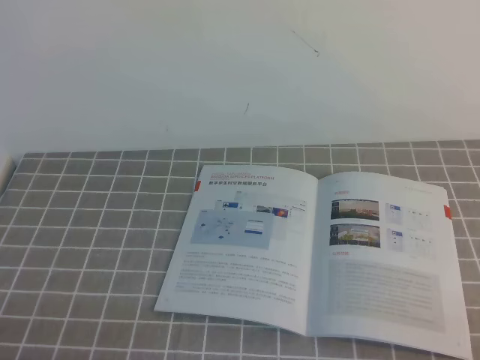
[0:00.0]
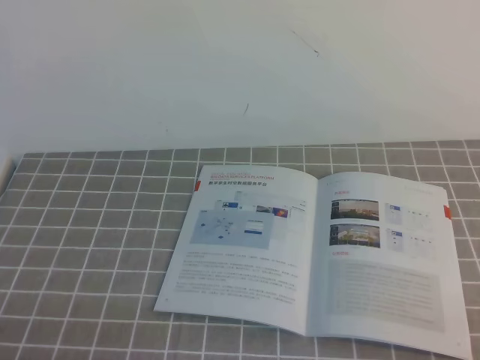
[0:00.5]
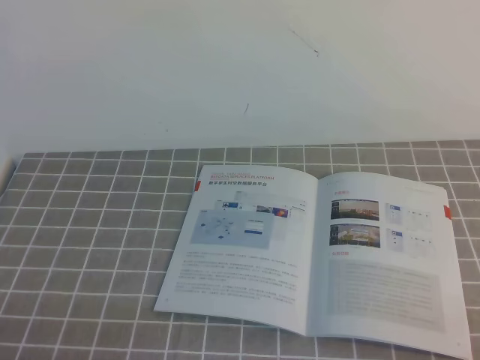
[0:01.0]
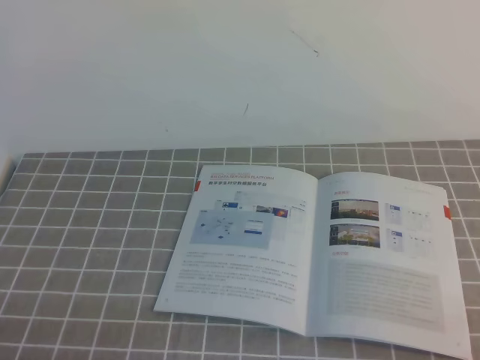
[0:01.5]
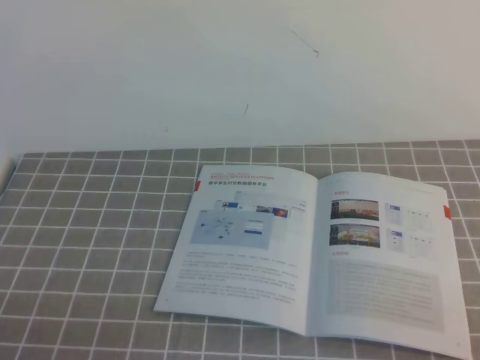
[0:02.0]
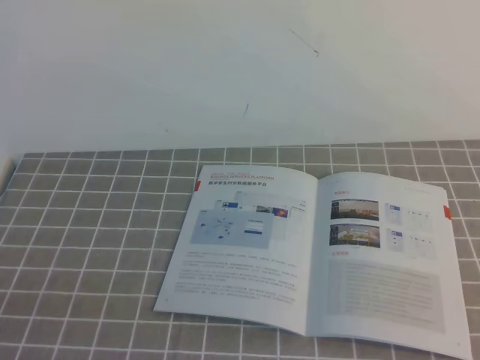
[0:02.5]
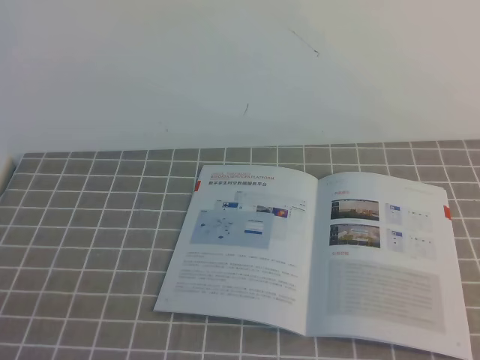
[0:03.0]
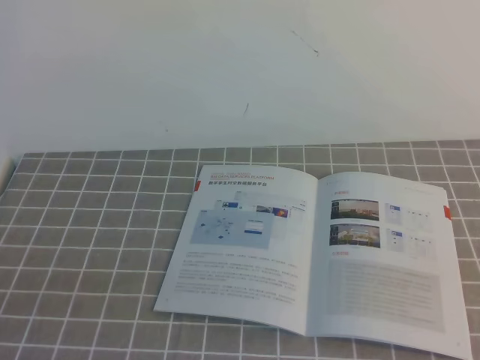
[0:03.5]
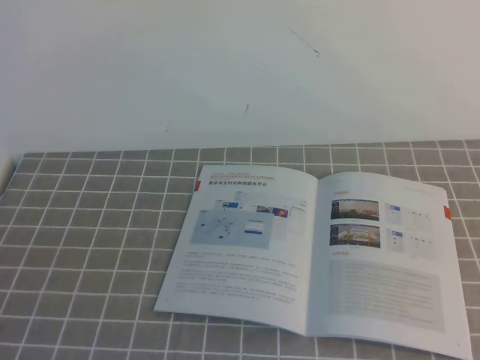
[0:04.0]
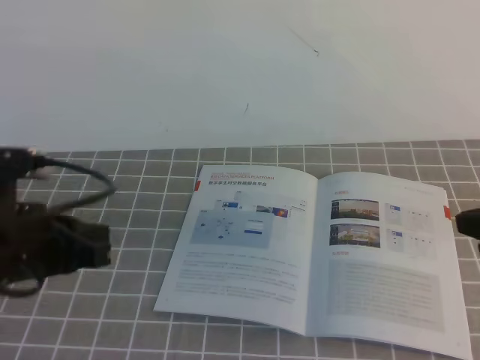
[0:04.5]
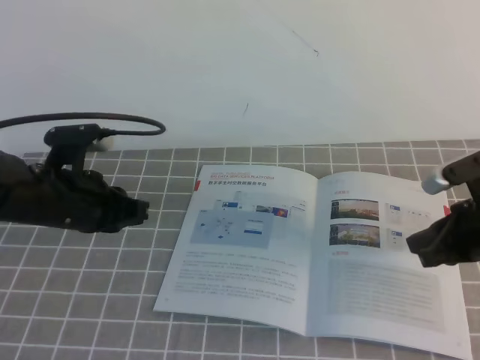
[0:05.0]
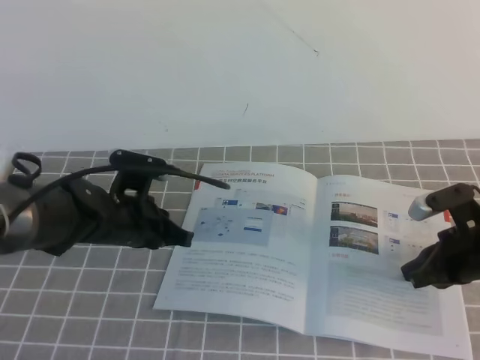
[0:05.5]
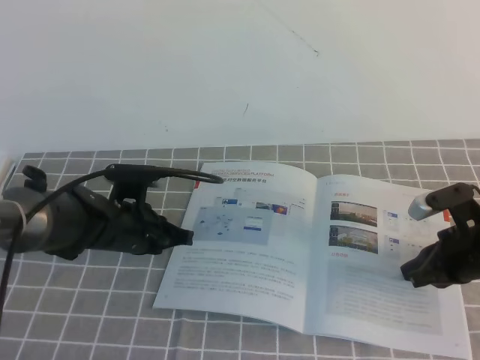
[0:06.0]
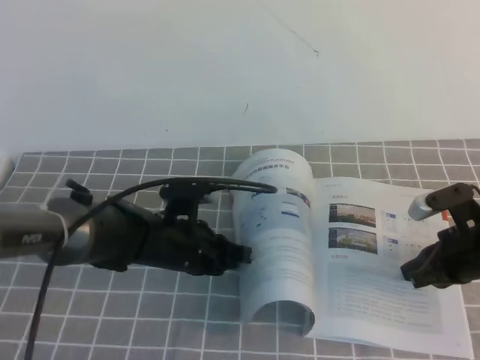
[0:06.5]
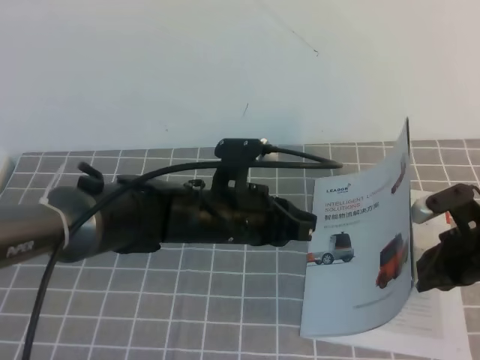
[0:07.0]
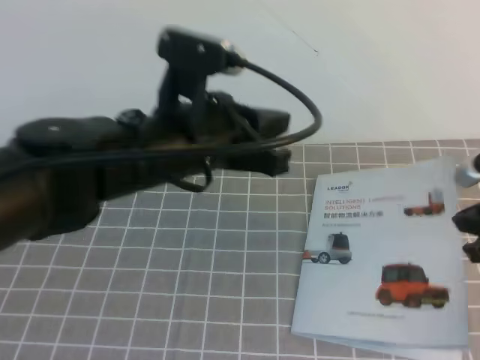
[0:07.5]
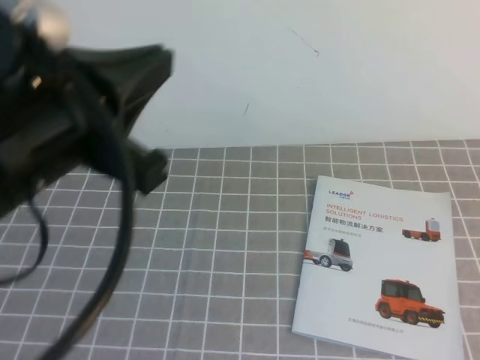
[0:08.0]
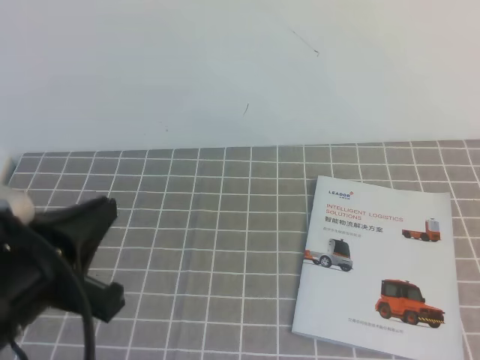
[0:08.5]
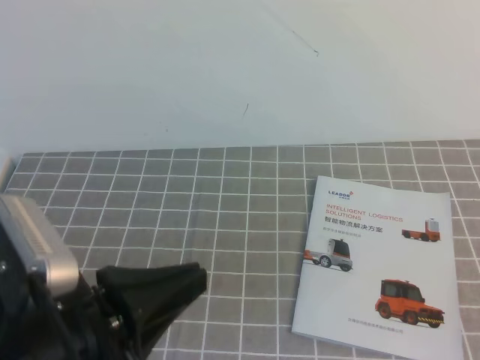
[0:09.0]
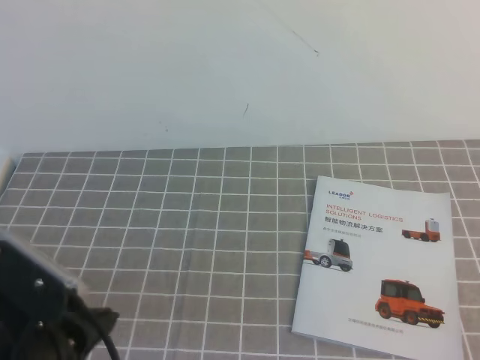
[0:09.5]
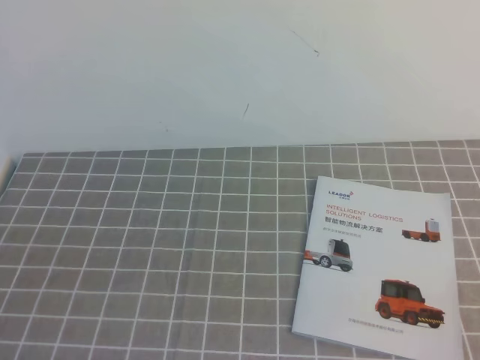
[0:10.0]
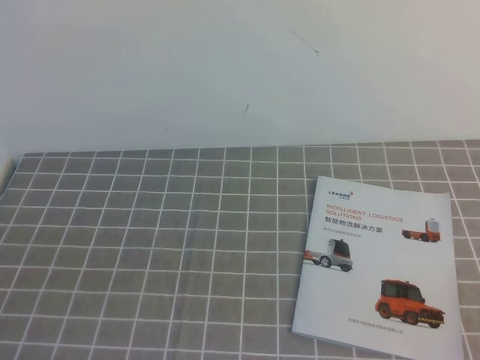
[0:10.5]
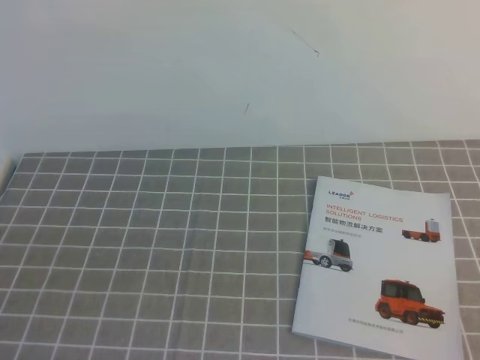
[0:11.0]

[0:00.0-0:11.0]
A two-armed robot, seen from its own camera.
Task of the whole recording: on the grey tablecloth, hold the book with one hand and close it with the other.
0:03.5 to 0:05.5: The left gripper goes approximately 30 cm forward, while the right gripper is displaced forward and downward by roughly 35 cm.
0:05.5 to 0:07.5: The right gripper moves upward, roughly 10 cm; the left gripper travels upward, to the right and backward by roughly 20 cm.
0:07.5 to 0:09.0: The right gripper moves backward and upward, approximately 30 cm; the left gripper moves backward and to the left, roughly 20 cm.
0:09.0 to 0:11.0: The left gripper goes some 10 cm to the left and backward. The right gripper travels downward by approximately 10 cm.

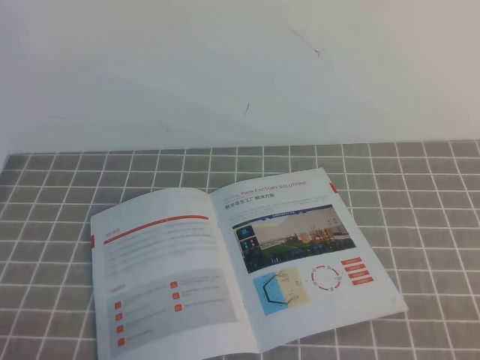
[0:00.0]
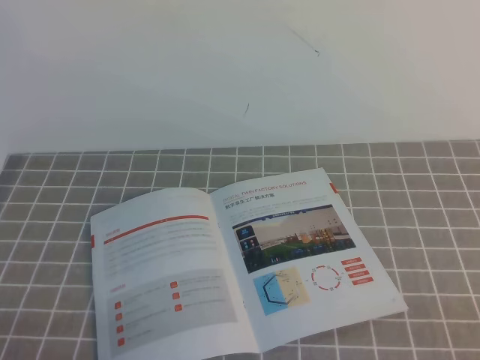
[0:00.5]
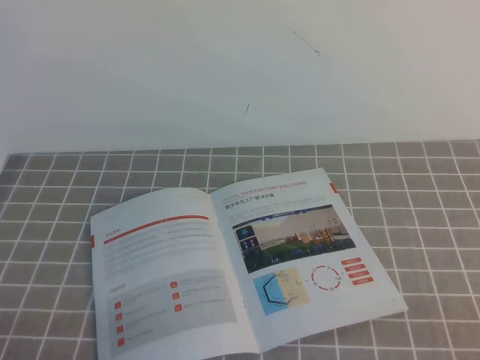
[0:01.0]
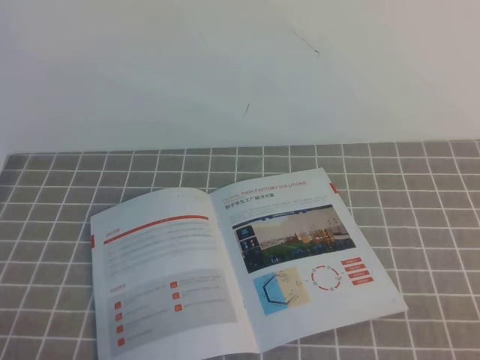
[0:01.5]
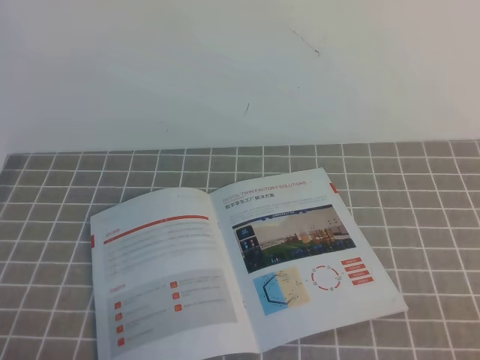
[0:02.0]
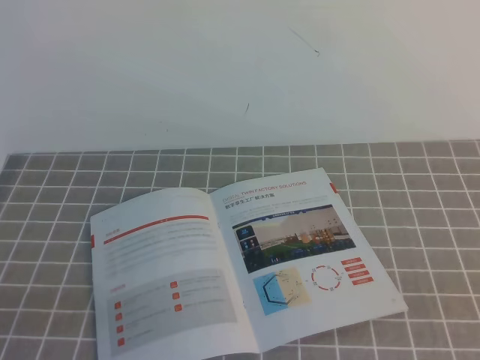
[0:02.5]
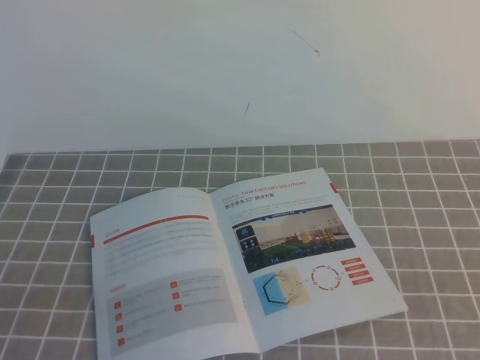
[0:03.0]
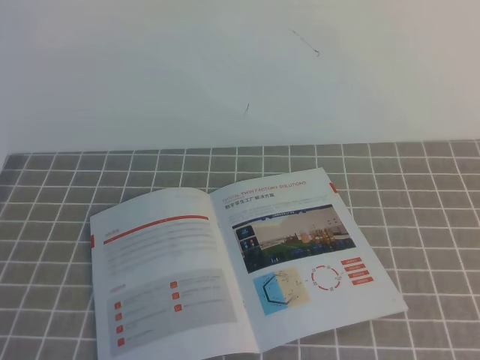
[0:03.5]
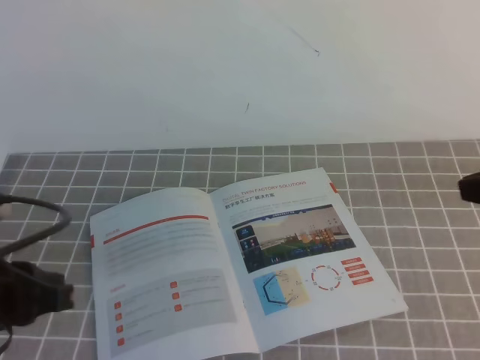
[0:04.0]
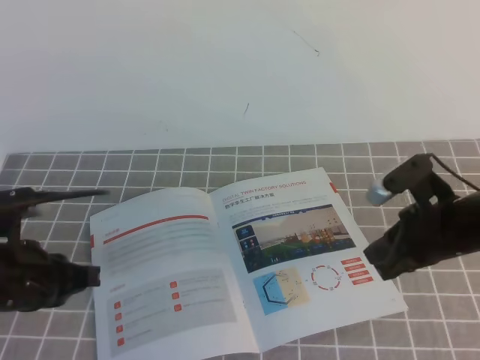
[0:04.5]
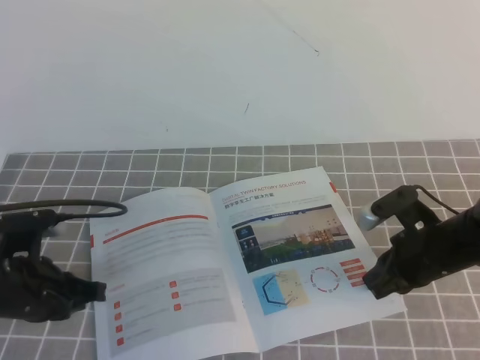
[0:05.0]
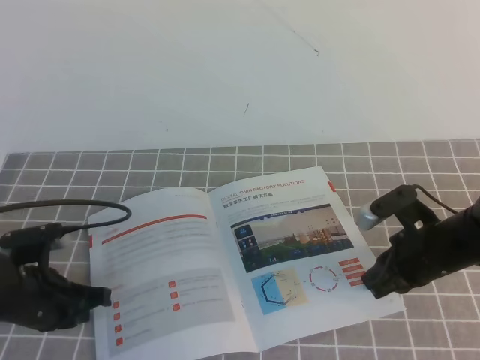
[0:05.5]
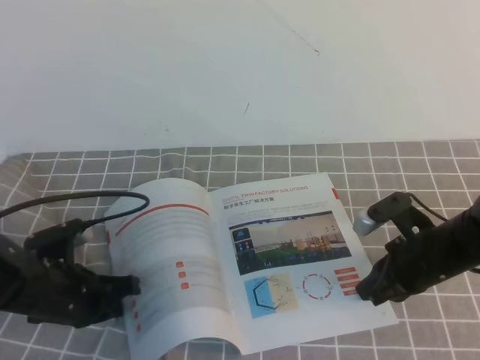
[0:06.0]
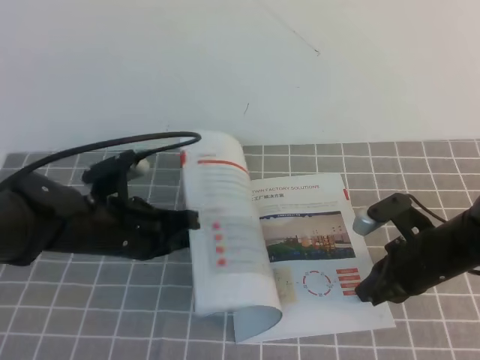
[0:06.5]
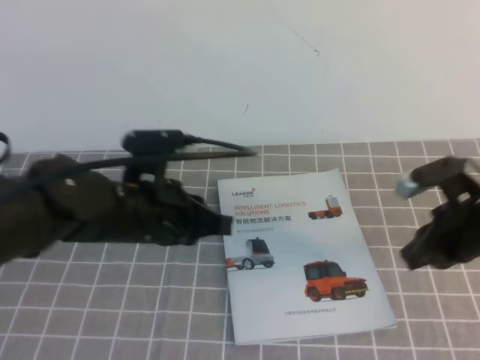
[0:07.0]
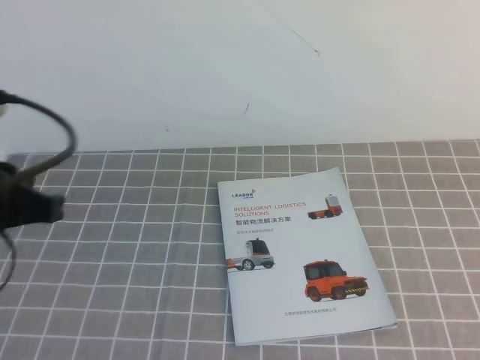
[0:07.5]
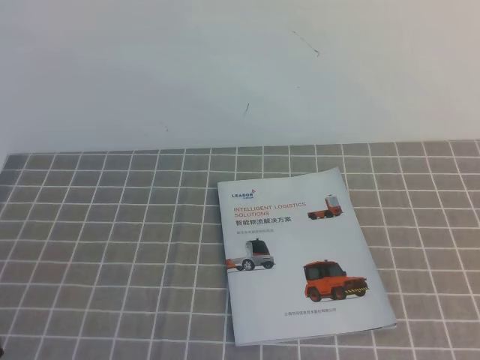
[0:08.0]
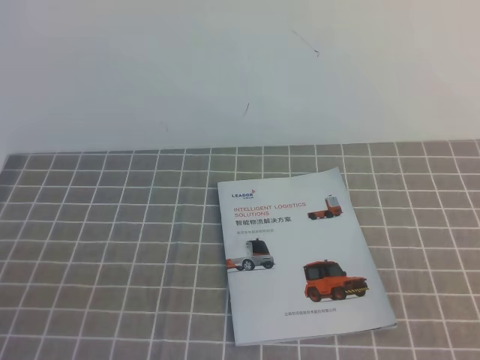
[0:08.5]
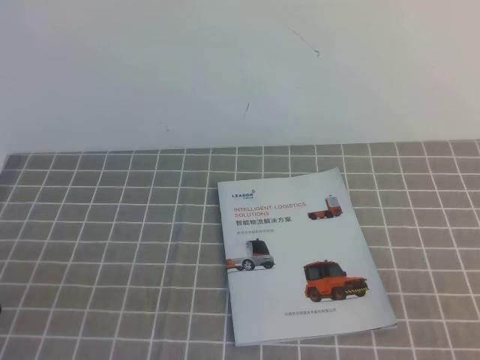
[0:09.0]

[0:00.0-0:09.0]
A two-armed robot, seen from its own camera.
Task of the whole recording: on the grey tablecloth, hold the book with one hand and close it with the other.
0:02.0 to 0:04.5: The left gripper goes approximately 15 cm forward; the right gripper heads forward and to the left, covering about 30 cm.
0:04.5 to 0:07.0: The left gripper moves to the right and forward, roughly 15 cm.
0:07.0 to 0:09.0: The right gripper goes approximately 25 cm backward. The left gripper travels backward and to the left by approximately 25 cm.
